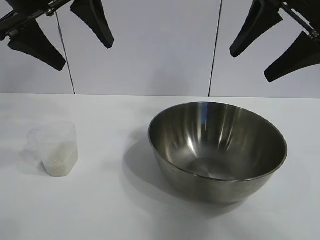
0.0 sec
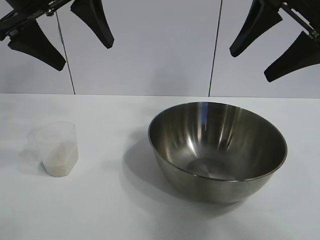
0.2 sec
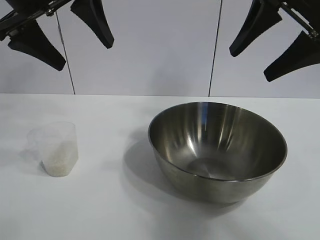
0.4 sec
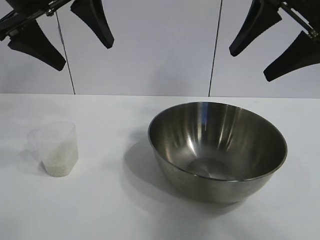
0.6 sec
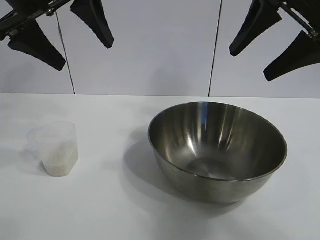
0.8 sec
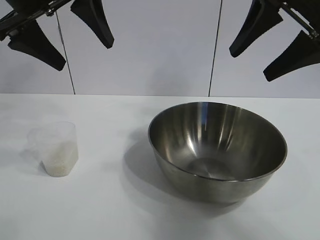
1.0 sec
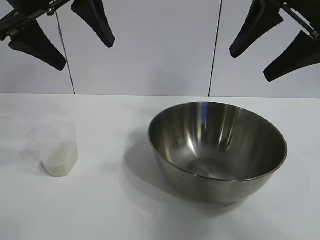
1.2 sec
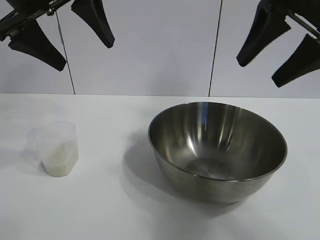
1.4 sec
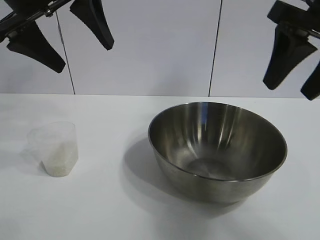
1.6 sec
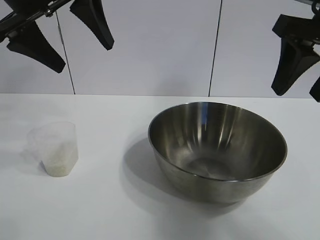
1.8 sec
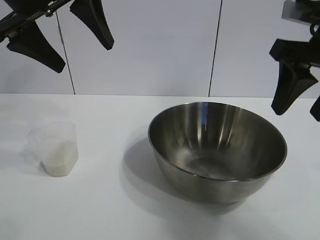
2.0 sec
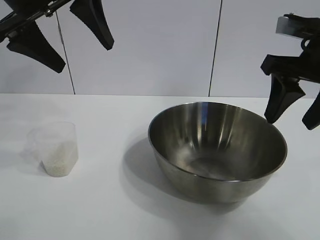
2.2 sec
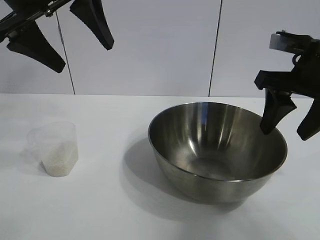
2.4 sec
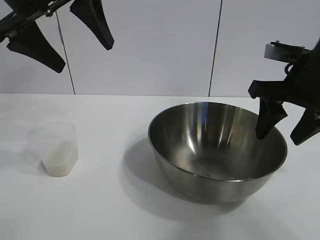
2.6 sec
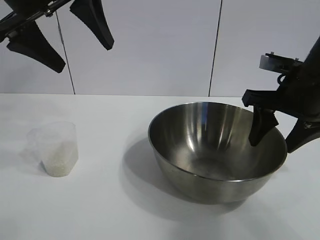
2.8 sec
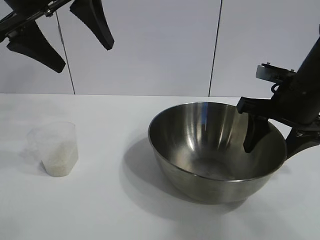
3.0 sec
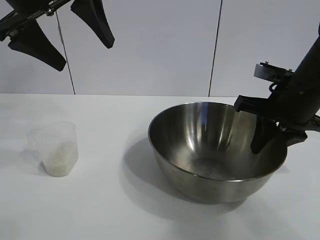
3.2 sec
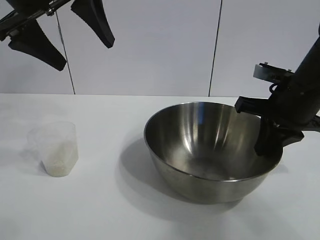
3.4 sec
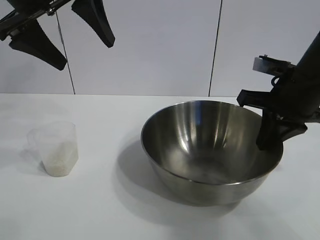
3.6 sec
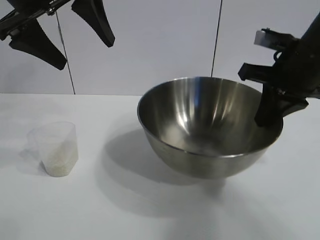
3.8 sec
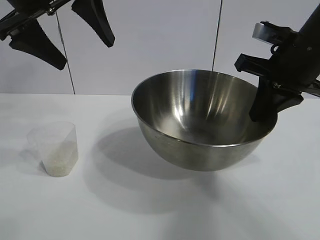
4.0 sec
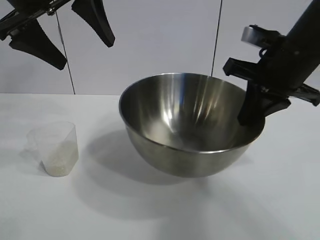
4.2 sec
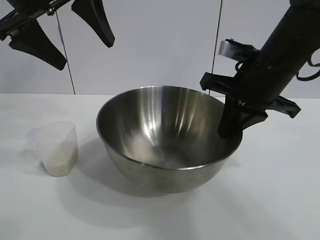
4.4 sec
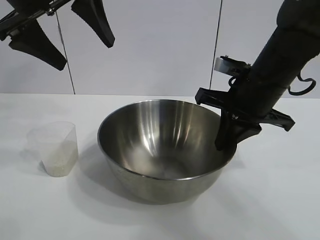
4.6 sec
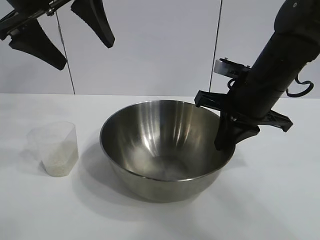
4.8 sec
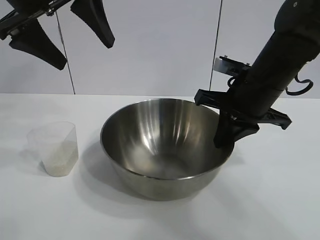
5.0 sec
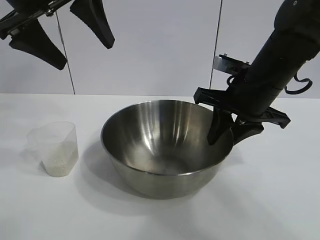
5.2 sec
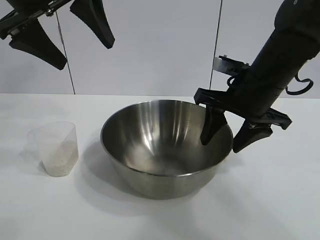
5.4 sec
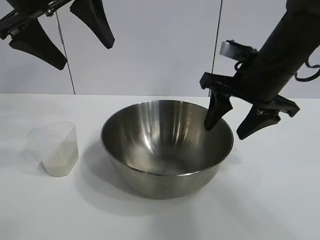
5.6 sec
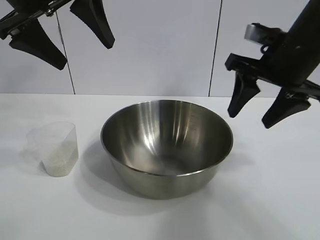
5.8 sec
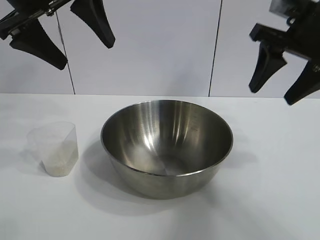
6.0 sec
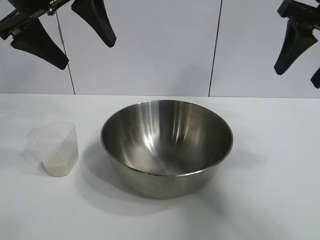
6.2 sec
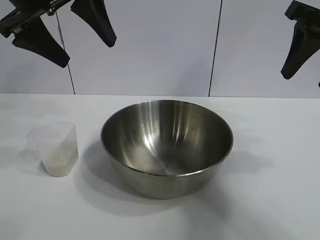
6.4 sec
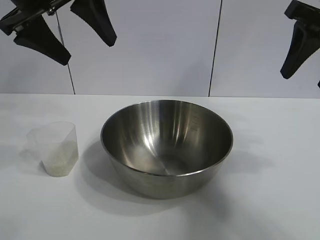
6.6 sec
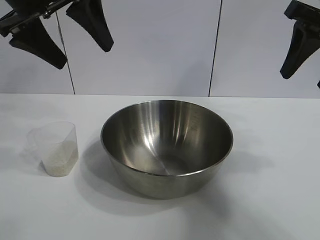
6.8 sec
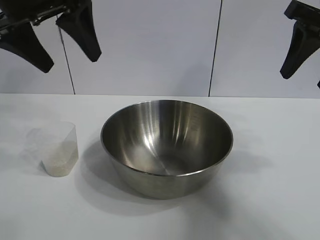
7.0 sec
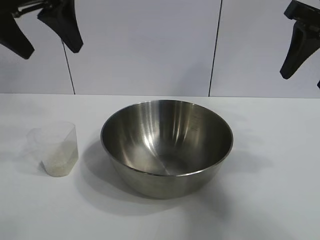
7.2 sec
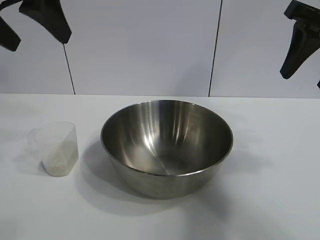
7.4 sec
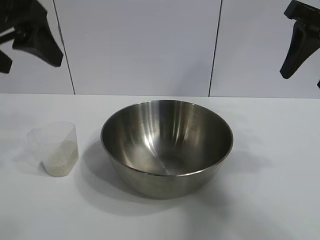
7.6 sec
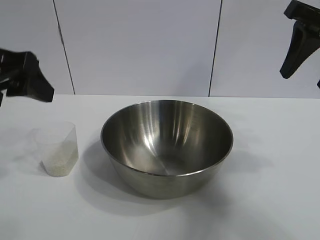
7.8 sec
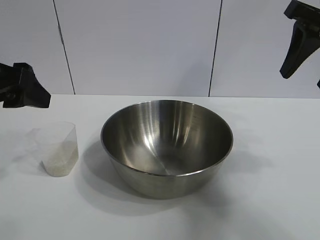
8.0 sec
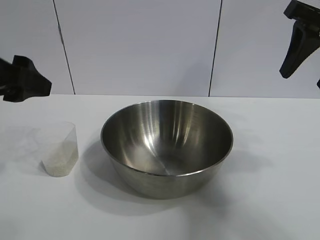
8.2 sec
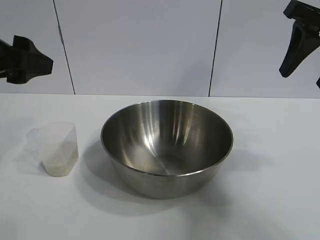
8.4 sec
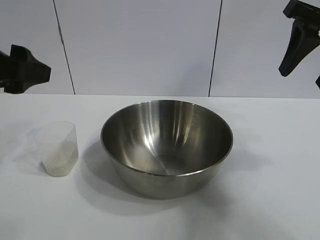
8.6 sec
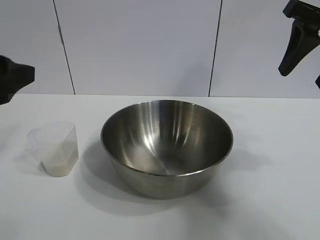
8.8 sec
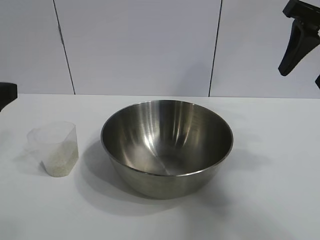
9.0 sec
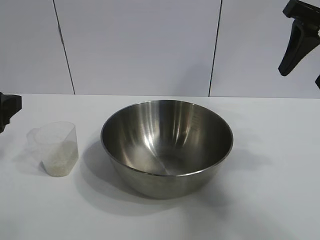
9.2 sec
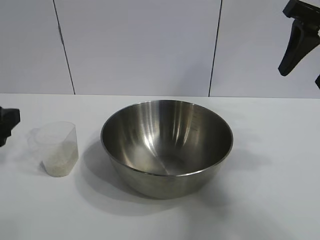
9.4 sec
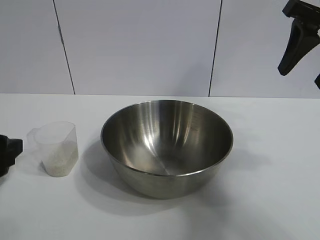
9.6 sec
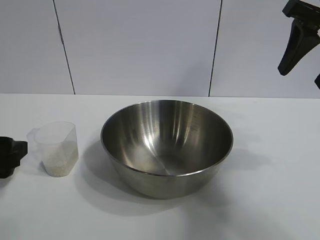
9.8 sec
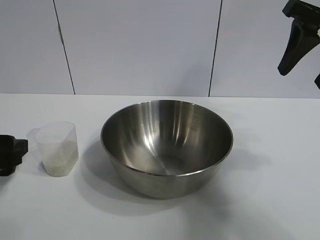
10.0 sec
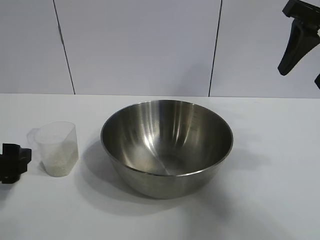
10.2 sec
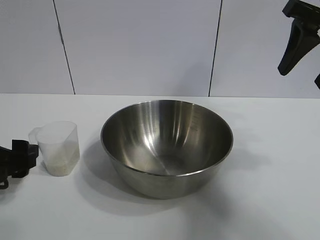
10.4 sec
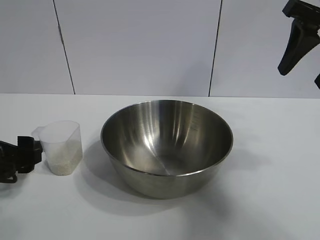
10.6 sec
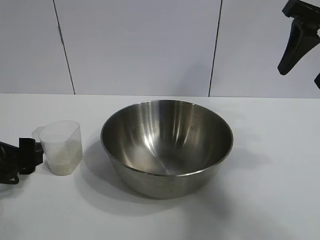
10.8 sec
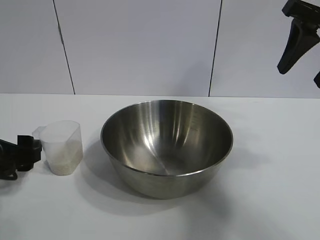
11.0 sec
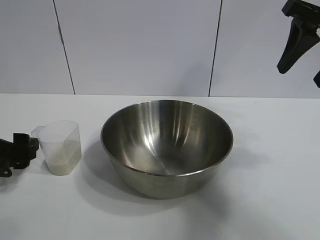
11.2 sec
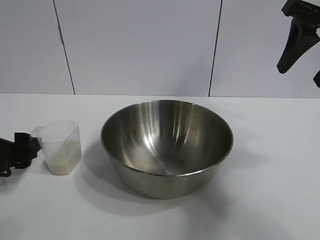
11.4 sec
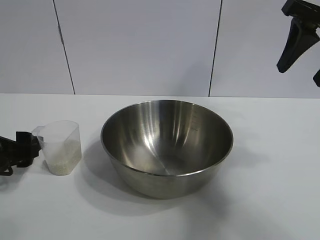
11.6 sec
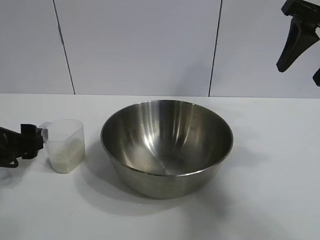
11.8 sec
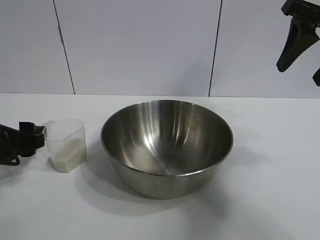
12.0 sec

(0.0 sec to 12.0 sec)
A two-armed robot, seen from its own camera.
Task of the whole recording: the right gripper grasp the rice container and place it in the center of the table, the left gripper grasp the rice scoop and pour the rice into the rice container.
Step, 1.2 sec - 5.2 sec: Move the bowl in the center of view with right gripper.

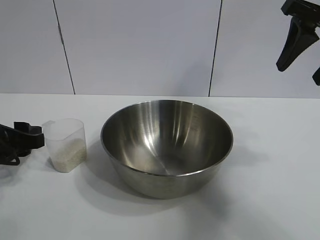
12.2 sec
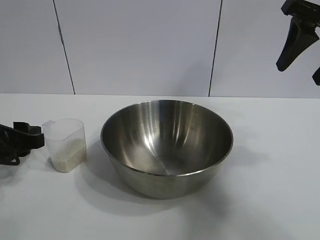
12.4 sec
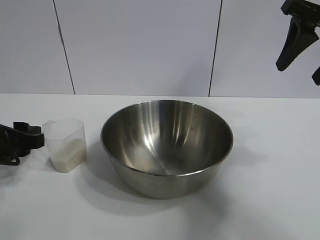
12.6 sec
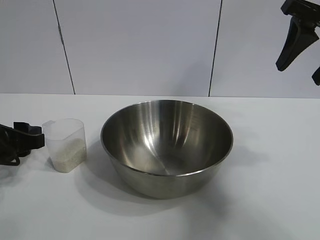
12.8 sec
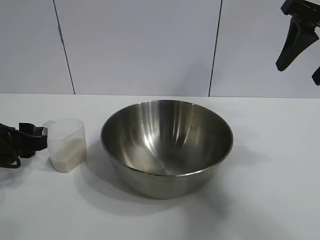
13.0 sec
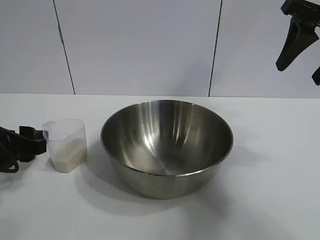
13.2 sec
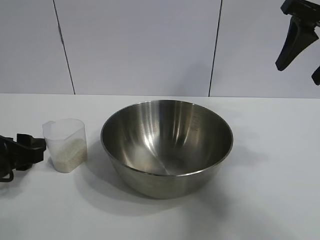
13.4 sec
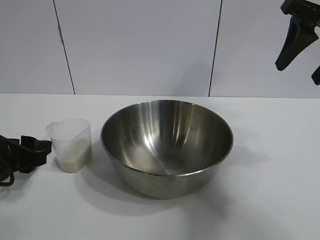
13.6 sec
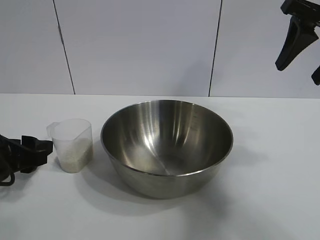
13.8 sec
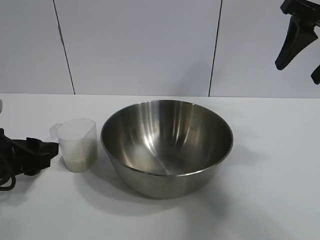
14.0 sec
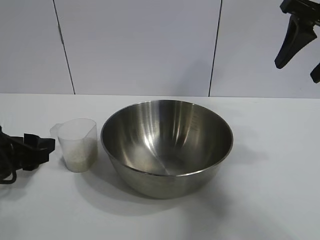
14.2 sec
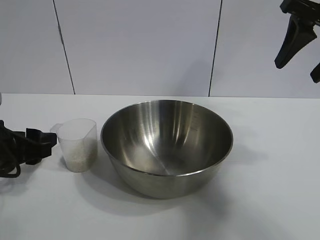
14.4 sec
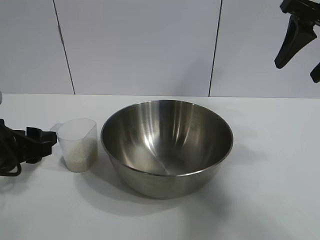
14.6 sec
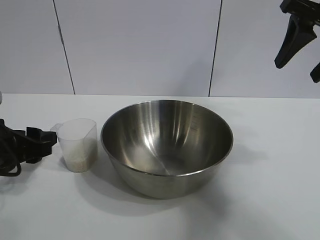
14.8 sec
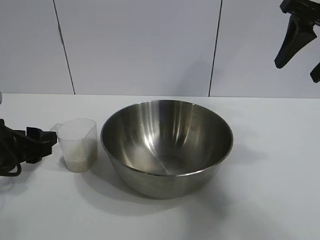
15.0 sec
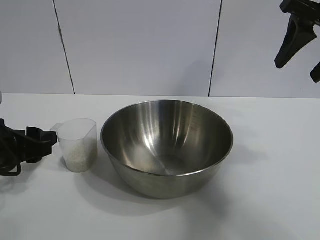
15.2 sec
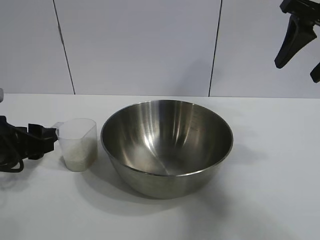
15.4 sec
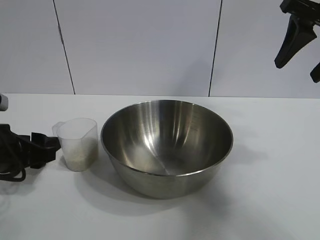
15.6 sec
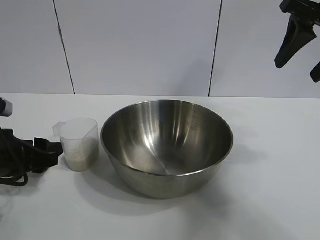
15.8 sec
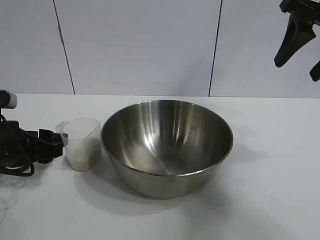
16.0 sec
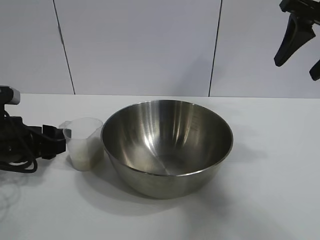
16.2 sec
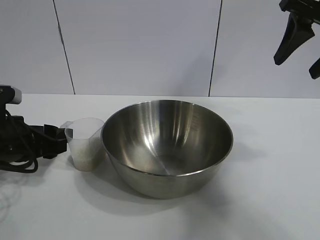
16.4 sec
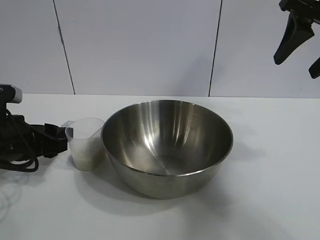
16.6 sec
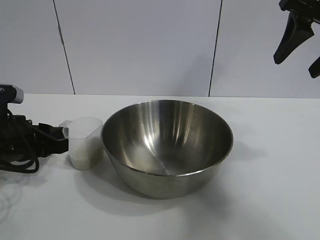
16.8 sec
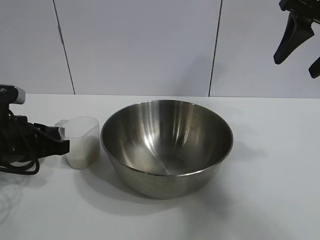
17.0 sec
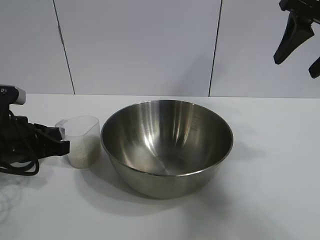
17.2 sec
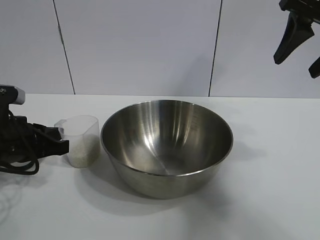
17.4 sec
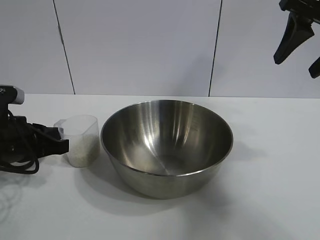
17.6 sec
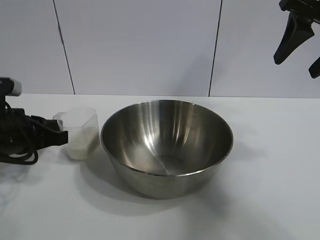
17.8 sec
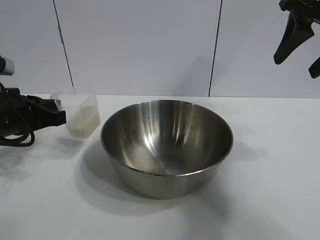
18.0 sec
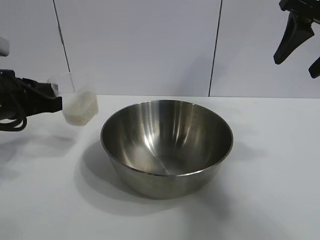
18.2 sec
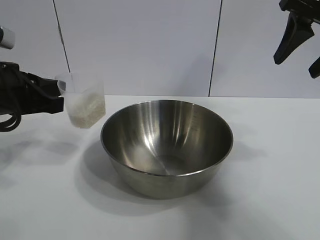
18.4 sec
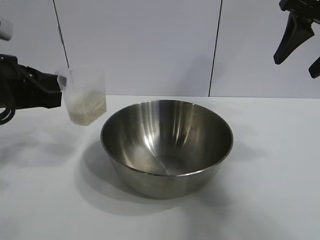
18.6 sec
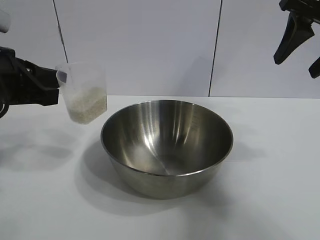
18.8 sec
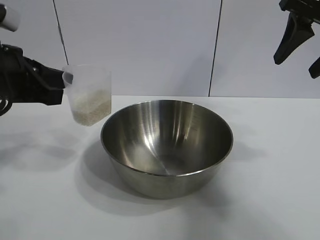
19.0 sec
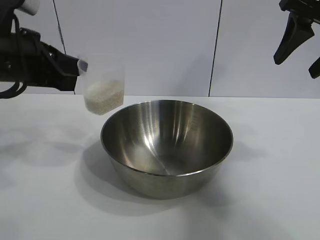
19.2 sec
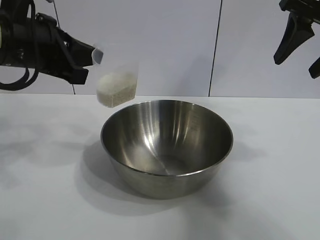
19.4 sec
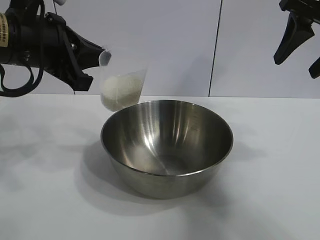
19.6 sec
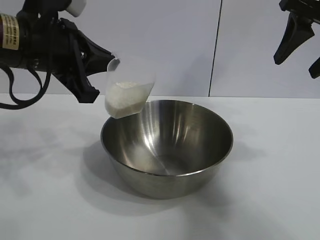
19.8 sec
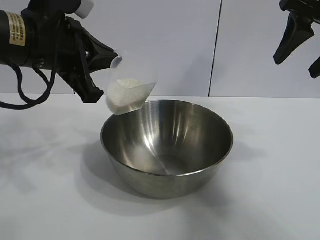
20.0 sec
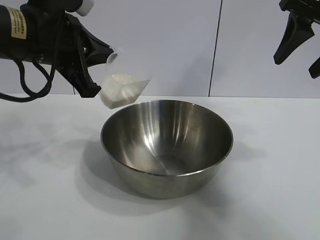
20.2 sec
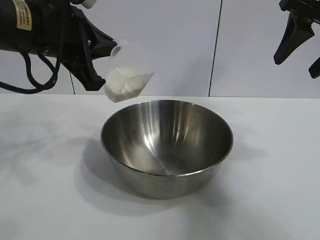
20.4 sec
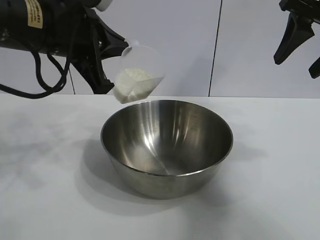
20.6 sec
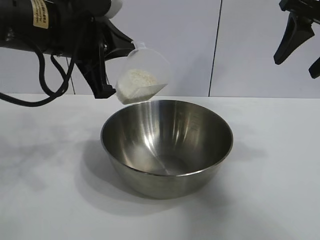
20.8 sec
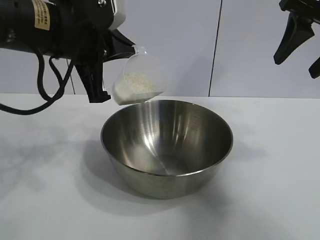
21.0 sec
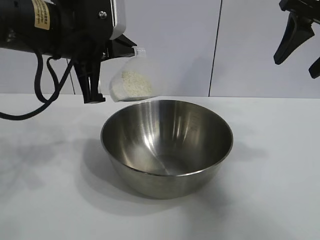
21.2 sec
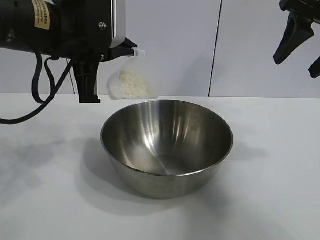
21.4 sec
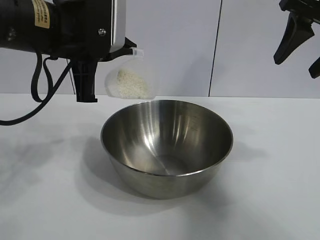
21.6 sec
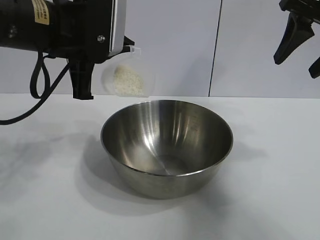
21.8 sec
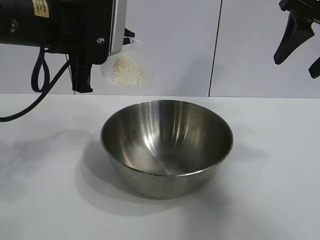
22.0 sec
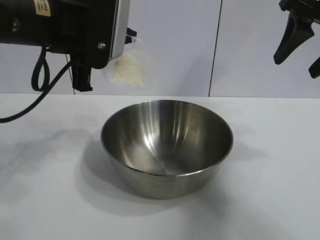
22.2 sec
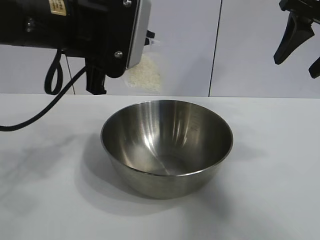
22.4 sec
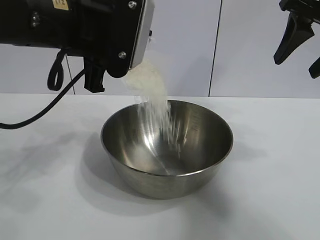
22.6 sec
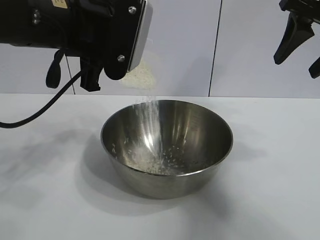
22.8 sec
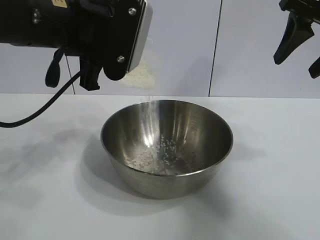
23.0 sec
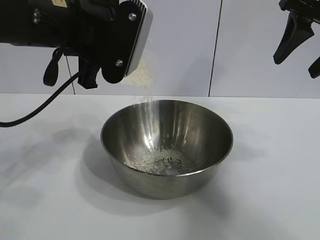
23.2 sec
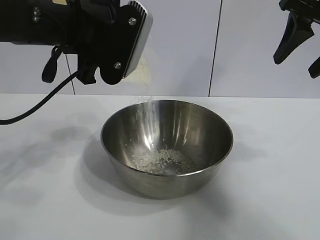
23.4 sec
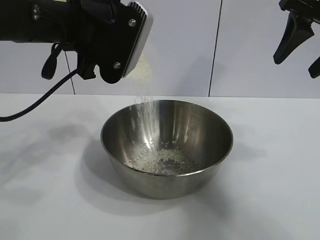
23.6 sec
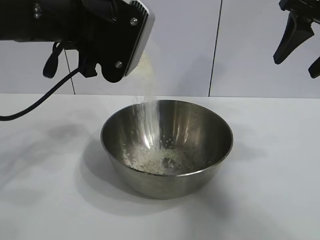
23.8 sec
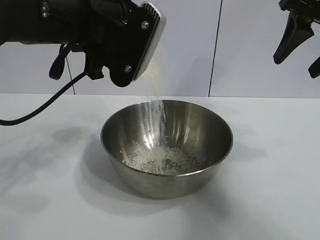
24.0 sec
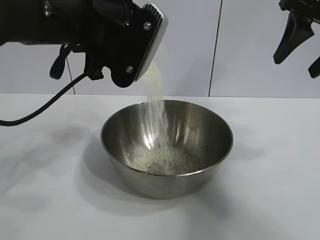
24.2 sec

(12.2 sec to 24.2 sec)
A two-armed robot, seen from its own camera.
Task of the whole recording: the right gripper grasp the rice container and place it in the center of the table, the left gripper grasp the rice scoop and pour the rice into the rice container.
Step, 12.2 sec - 17.4 sec: Grasp the cup with rice in it with left gripper.
